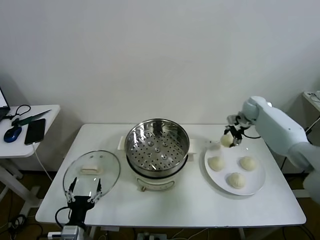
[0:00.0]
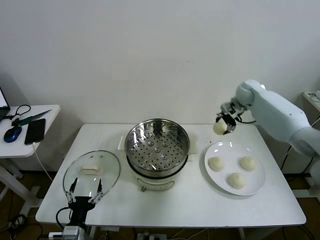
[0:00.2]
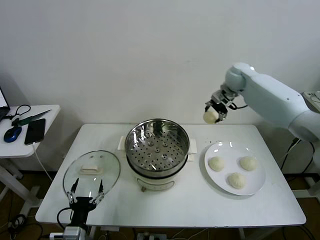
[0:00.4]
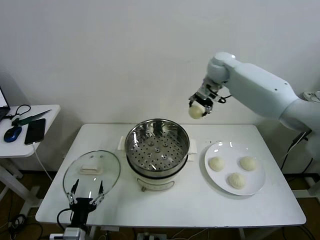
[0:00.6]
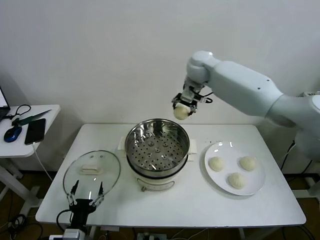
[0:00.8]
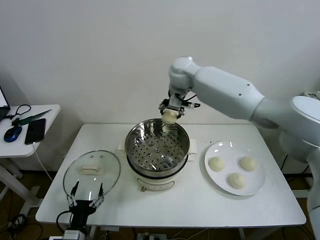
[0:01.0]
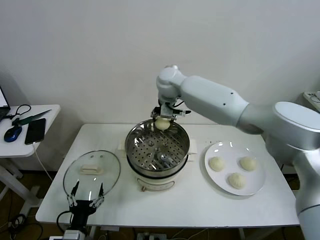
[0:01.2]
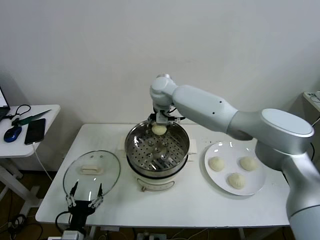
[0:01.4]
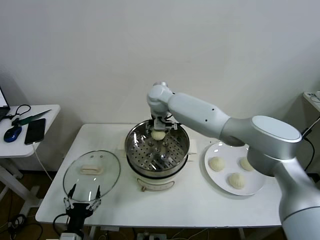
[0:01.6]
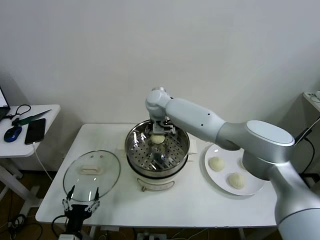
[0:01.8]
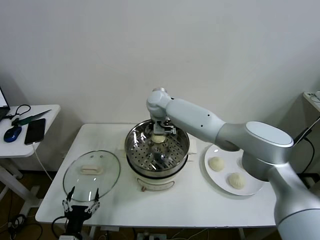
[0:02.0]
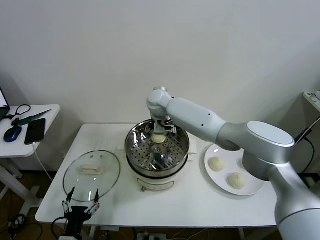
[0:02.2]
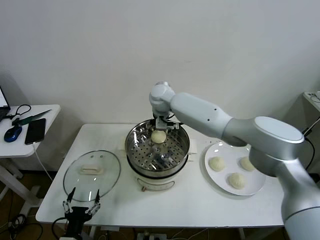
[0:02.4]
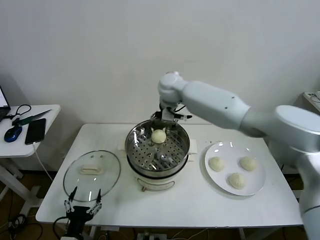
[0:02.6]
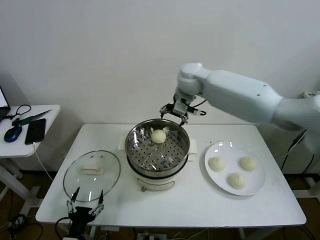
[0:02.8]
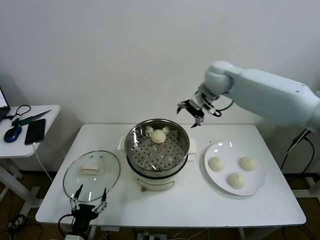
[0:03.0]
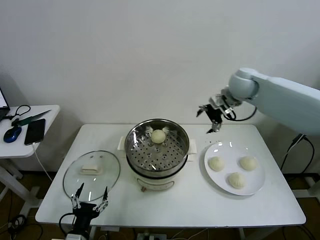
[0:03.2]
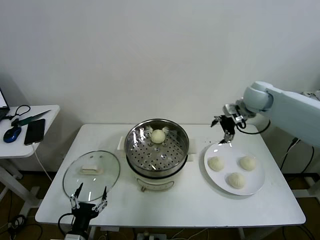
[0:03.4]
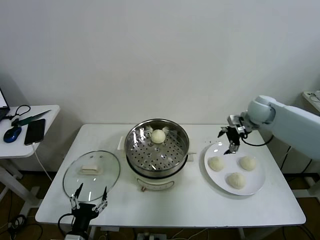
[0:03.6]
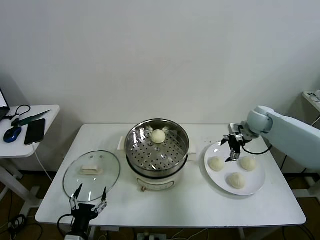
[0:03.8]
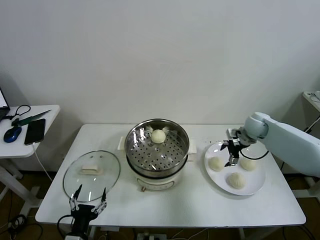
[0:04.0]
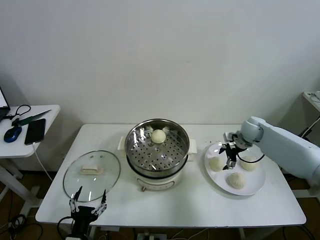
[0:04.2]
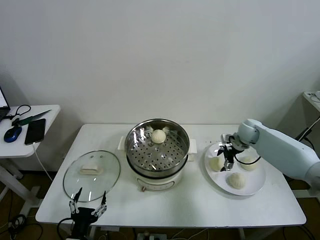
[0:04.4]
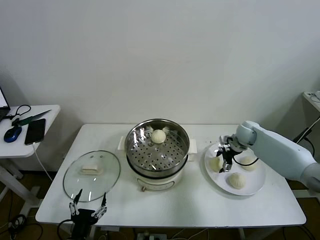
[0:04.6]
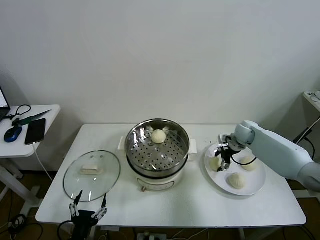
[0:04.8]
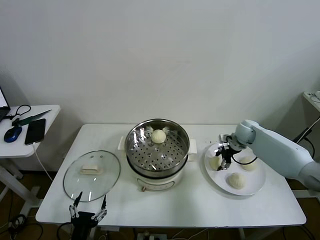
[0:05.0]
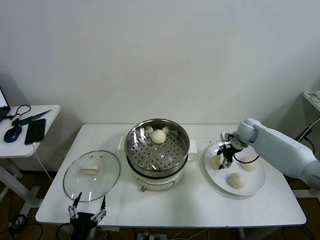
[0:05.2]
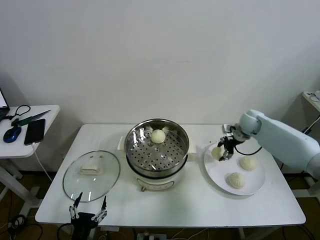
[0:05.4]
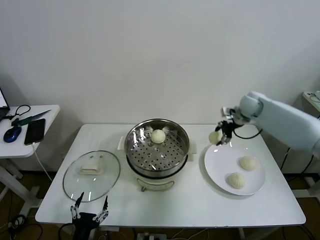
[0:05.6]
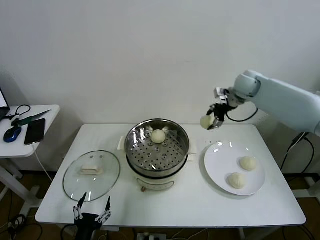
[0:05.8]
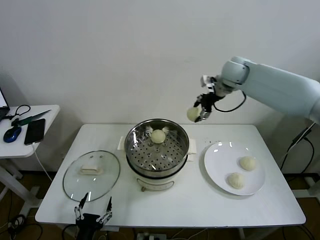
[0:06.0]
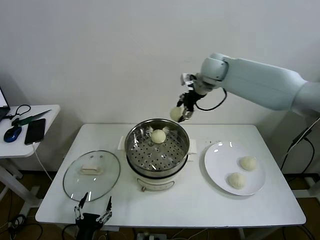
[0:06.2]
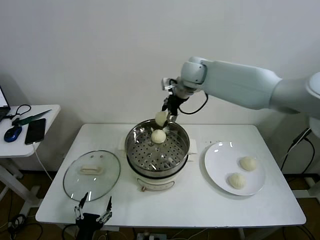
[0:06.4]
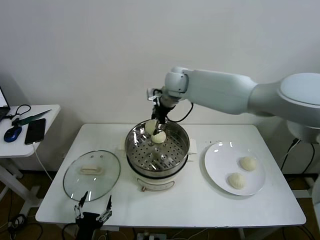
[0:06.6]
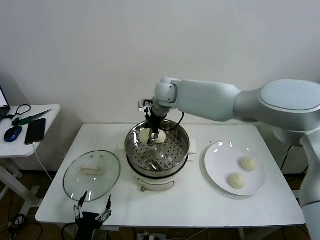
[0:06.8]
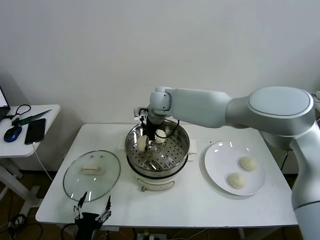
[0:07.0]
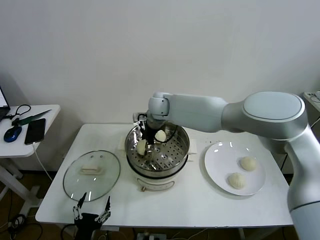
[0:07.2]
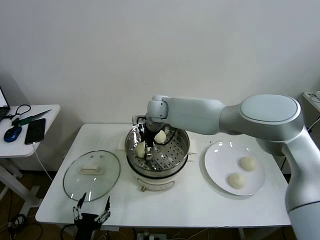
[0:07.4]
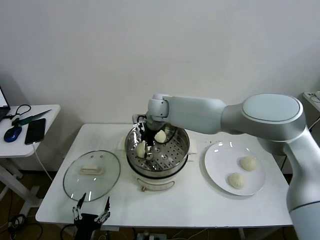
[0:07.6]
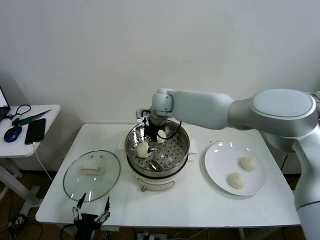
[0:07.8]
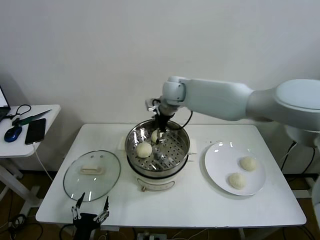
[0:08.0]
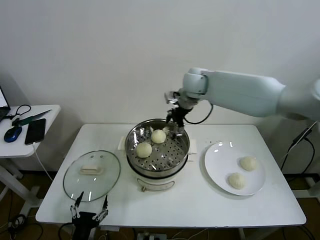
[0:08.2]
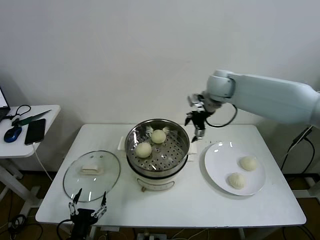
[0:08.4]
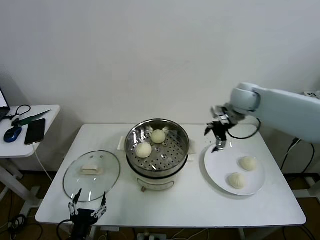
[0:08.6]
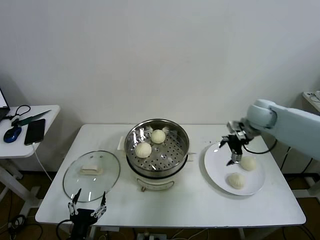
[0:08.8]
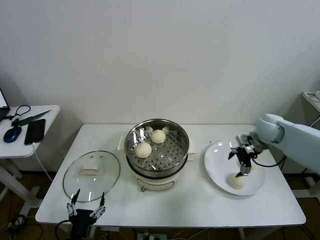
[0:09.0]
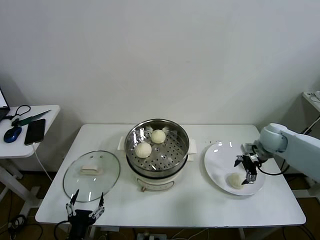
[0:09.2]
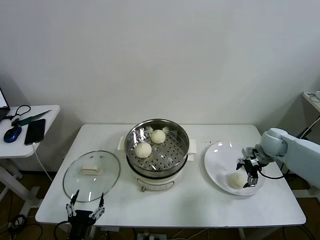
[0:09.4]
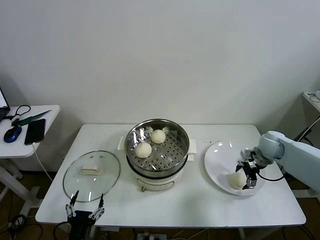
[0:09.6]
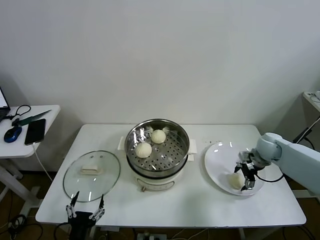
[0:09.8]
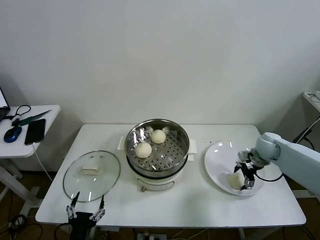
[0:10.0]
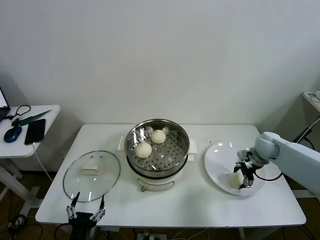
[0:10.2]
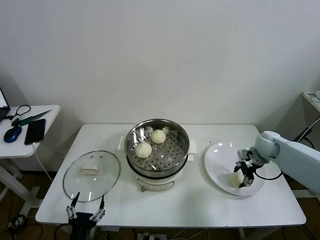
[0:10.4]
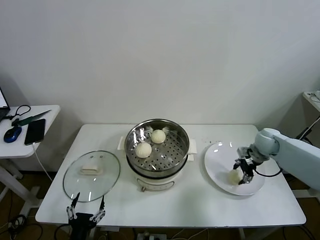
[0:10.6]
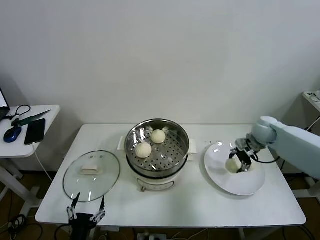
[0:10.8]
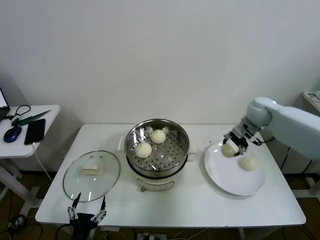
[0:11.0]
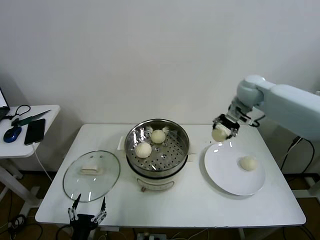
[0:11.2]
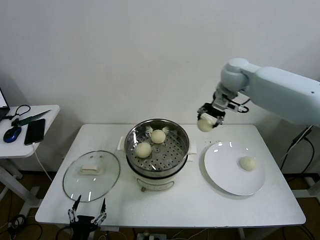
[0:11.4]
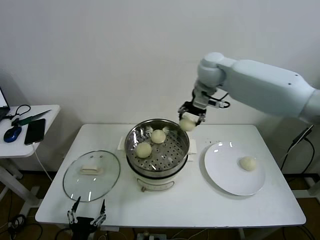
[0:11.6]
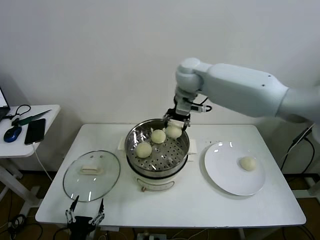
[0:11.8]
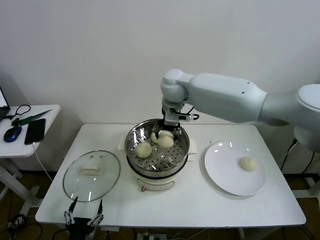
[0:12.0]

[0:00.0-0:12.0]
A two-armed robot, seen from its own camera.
Task of the whole recording: take steamed baozi put them in steamer then cover it.
Step, 0:00.0 to 0:02.2: Place the baozi on the steamer with right gripper.
Step, 0:02.4 to 0:04.8: Grasp the baozi in the plate with right gripper.
Step, 0:05.0 to 0:07.6: Place the baozi on the steamer with right gripper.
Step, 0:07.8 to 0:10.2: Grasp the baozi in the plate with right gripper.
0:00.0 to 0:01.6: The right gripper moves to the left, about 35 cm.
0:01.6 to 0:03.0: The right gripper goes about 25 cm to the right and upward, and opens.
0:03.0 to 0:04.4: The right gripper travels downward and to the right by some 30 cm.
0:04.4 to 0:06.0: The right gripper is displaced upward and to the left by some 30 cm, and closes its fingers.
0:06.0 to 0:07.6: The right gripper travels to the left and downward by roughly 25 cm, and opens its fingers.
0:07.6 to 0:09.0: The right gripper is displaced to the right by approximately 40 cm.
0:09.0 to 0:10.4: The right gripper is displaced downward by roughly 5 cm, and closes its fingers.
0:10.4 to 0:12.0: The right gripper goes approximately 40 cm to the left and upward.

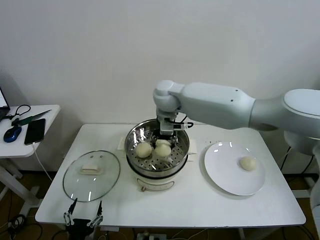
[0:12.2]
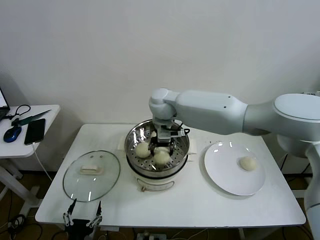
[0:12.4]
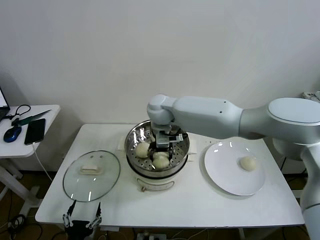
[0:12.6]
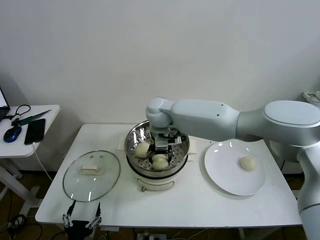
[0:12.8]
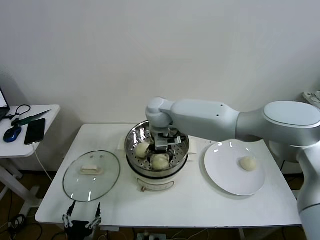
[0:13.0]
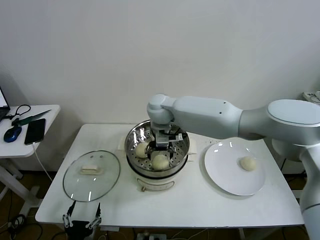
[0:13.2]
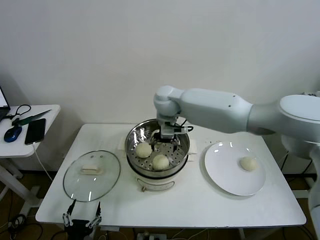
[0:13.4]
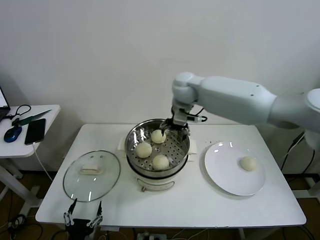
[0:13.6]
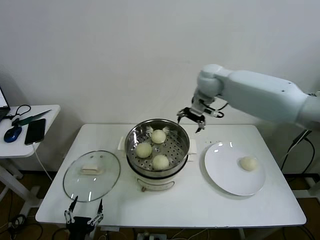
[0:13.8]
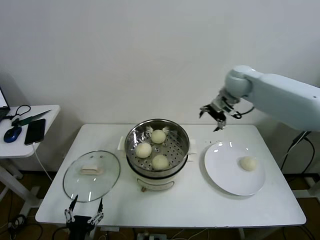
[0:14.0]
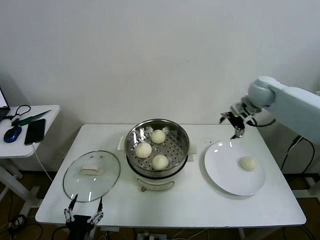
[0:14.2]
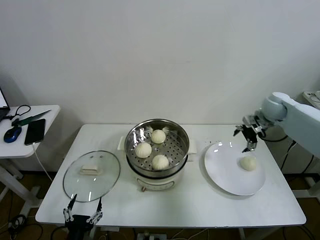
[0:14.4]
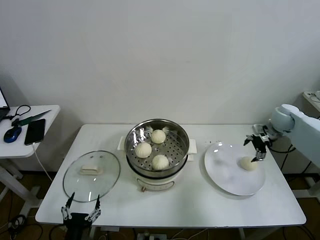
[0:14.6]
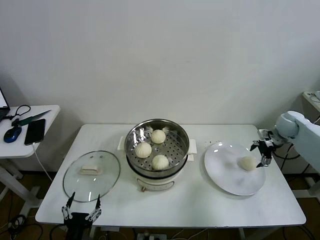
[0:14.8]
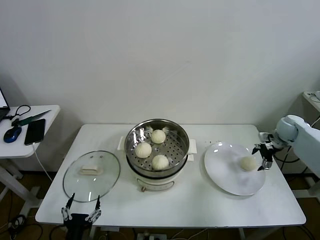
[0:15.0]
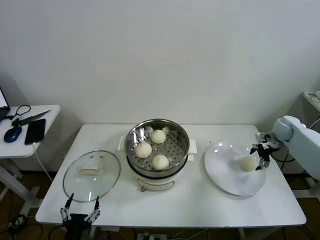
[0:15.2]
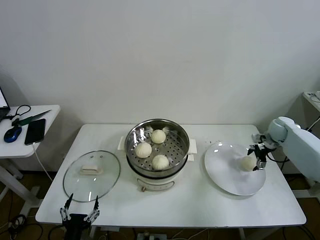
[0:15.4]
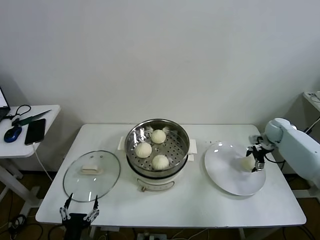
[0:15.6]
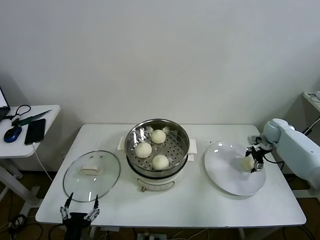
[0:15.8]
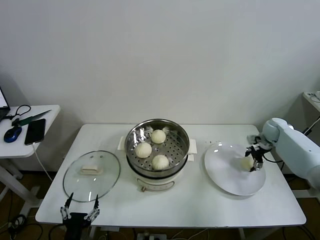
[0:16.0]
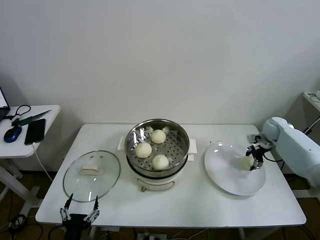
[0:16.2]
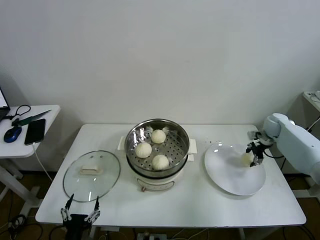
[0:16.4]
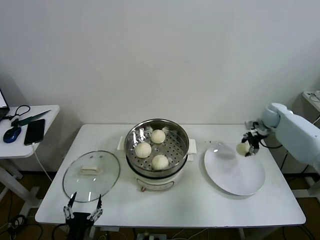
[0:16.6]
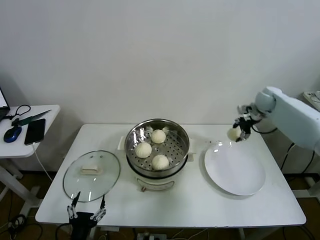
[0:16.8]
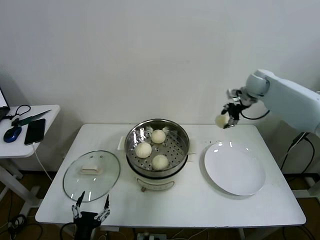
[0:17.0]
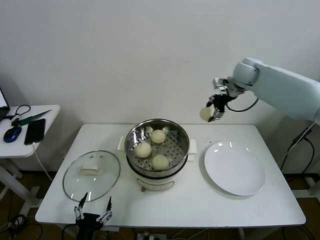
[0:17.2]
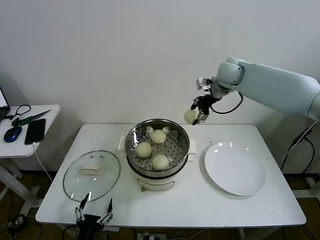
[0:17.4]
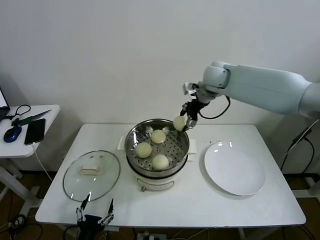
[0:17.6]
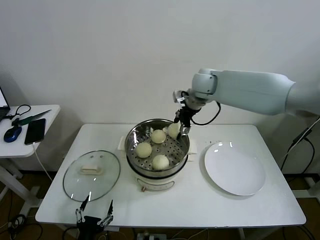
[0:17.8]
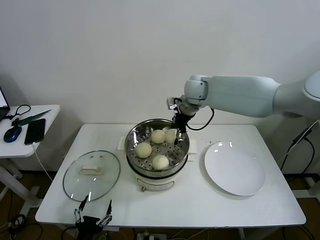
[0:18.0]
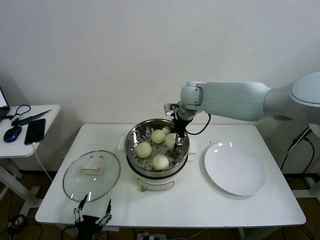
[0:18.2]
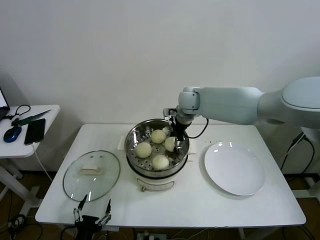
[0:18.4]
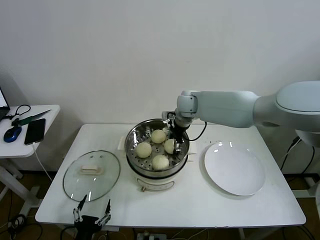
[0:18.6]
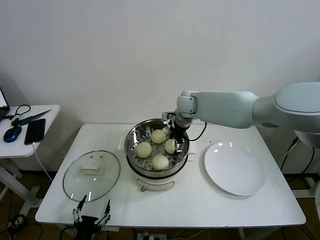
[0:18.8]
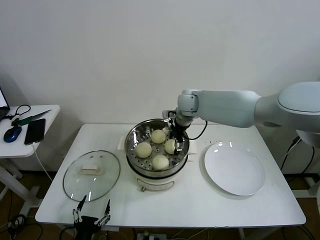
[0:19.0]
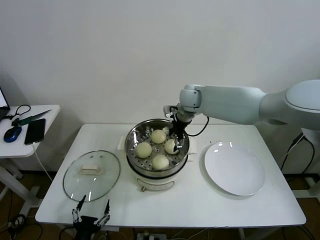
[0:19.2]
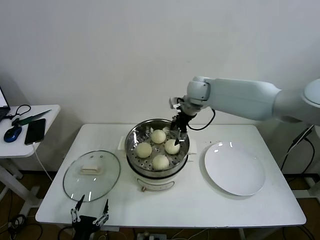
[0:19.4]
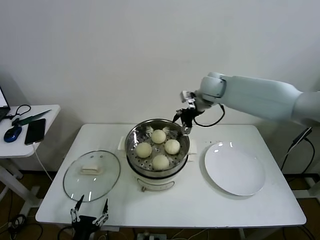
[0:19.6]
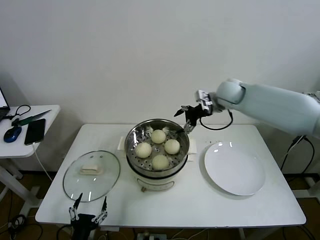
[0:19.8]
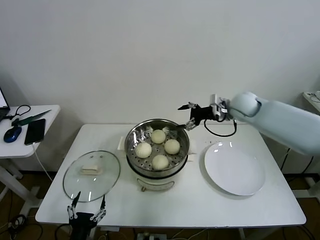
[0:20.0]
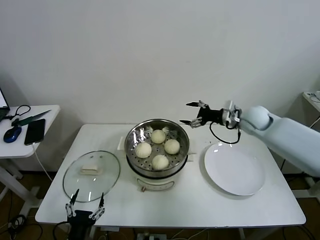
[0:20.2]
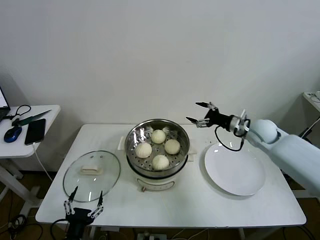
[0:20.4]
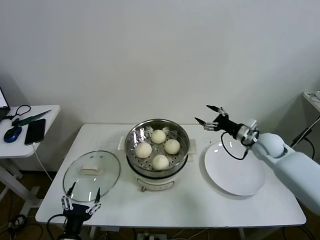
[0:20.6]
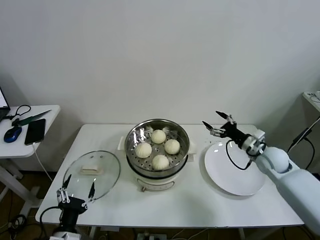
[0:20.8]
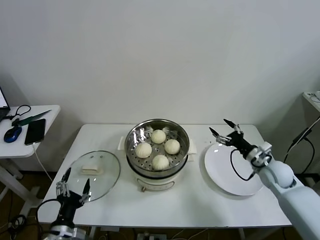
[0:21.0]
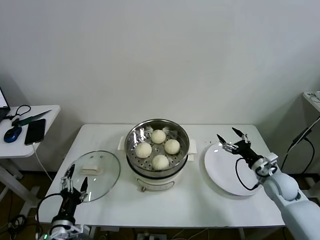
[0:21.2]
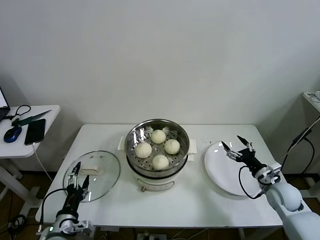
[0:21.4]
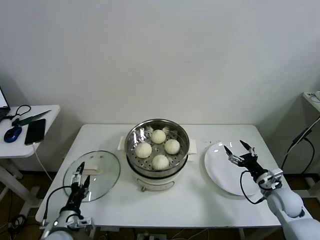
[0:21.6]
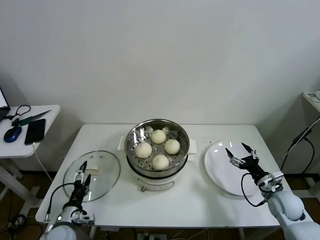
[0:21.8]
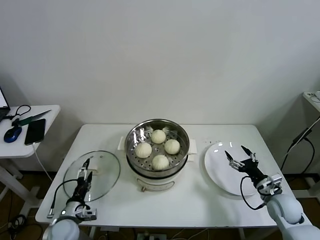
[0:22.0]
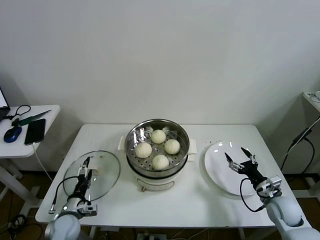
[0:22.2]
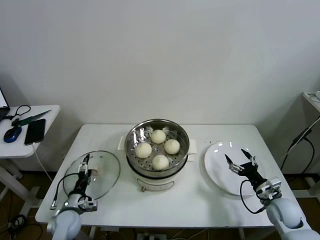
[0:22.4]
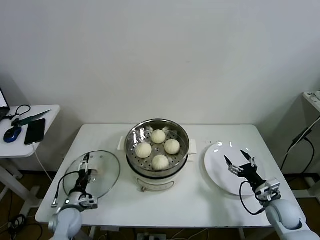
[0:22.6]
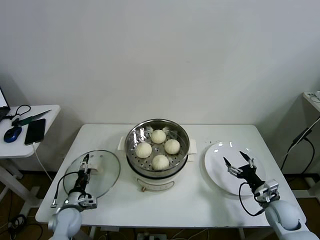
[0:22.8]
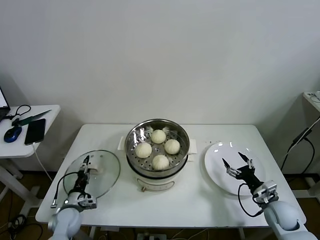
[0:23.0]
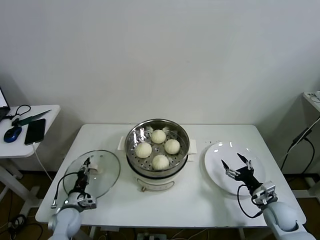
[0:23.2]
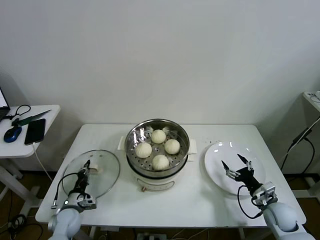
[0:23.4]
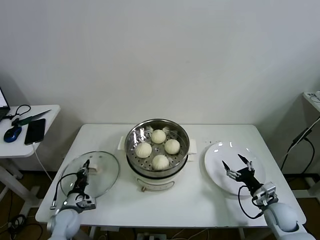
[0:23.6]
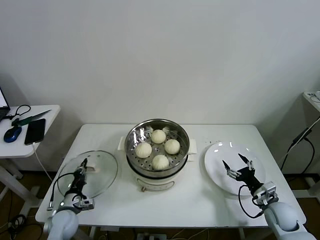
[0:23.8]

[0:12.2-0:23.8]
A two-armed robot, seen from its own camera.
Task of the whole recording: take steamed baozi put them in steamer then cover it.
Step, 0:13.2 to 0:16.0: Grasp the baozi in the plate with right gripper.
Step, 0:16.2 to 0:19.0: Place the baozi on the steamer with right gripper.
Step, 0:19.4 to 0:23.2: Grasp the pot lid with left gripper.
0:12.2 to 0:13.6: The right gripper goes roughly 10 cm to the right, and opens.
0:13.6 to 0:15.0: The right gripper shifts roughly 40 cm to the right and downward.
0:15.0 to 0:16.6: The right gripper goes approximately 5 cm forward, and closes.
0:16.6 to 0:18.0: The right gripper is displaced to the left by some 35 cm.
0:18.0 to 0:19.4: The right gripper opens up.
0:19.4 to 0:21.0: The right gripper moves to the right, downward and backward, roughly 40 cm, while the left gripper moves approximately 5 cm.
0:21.0 to 0:22.4: The left gripper is displaced forward and downward by roughly 15 cm; the right gripper heads backward and downward, covering about 15 cm.
0:22.4 to 0:23.8: The left gripper closes up.
